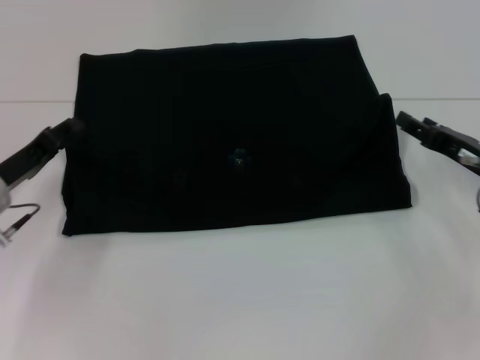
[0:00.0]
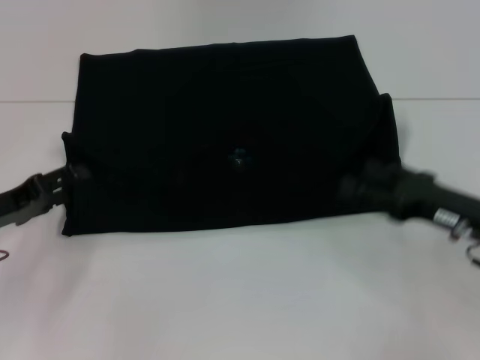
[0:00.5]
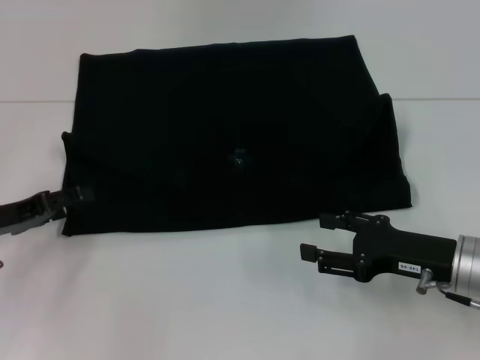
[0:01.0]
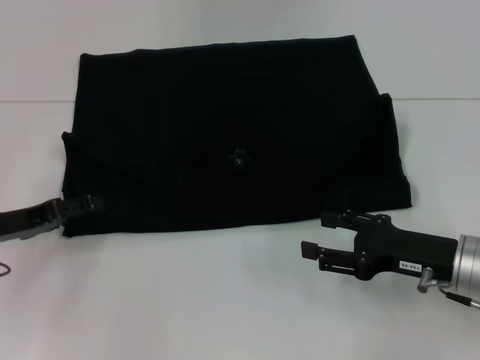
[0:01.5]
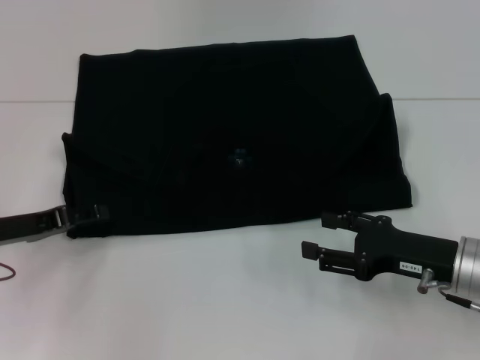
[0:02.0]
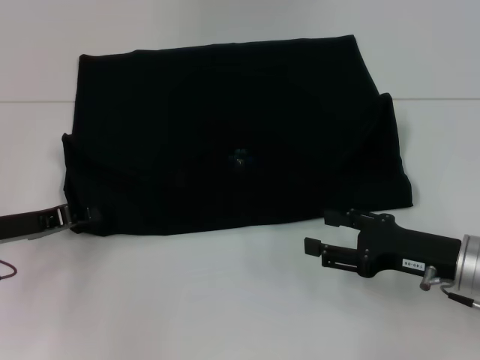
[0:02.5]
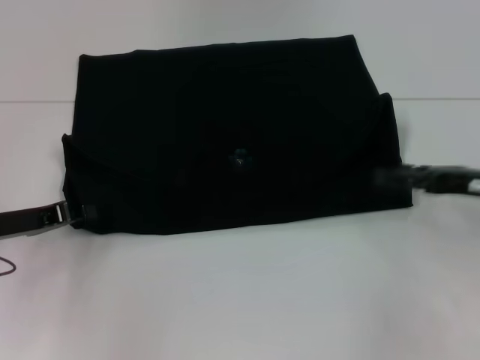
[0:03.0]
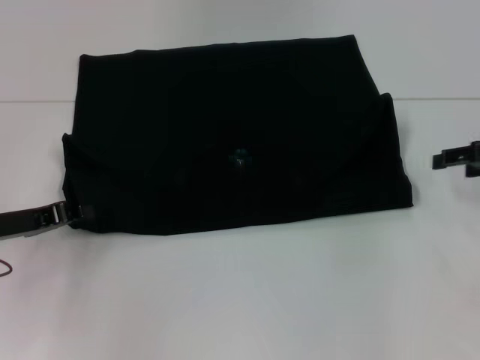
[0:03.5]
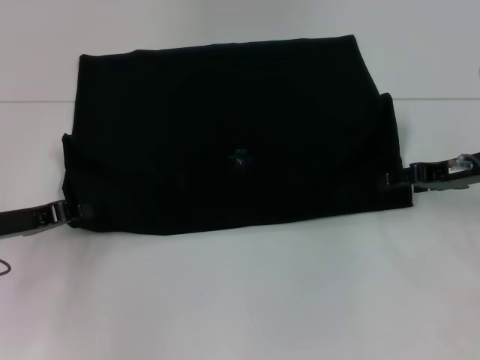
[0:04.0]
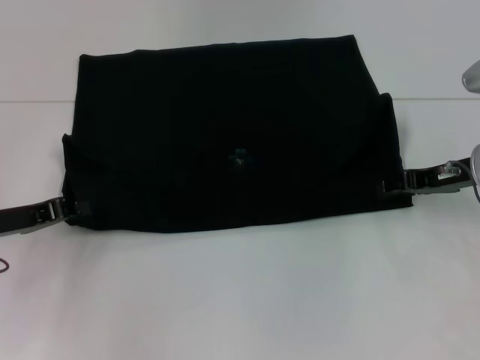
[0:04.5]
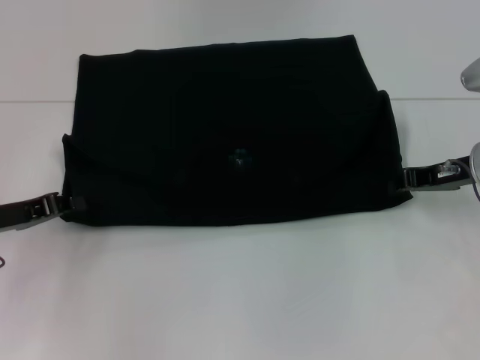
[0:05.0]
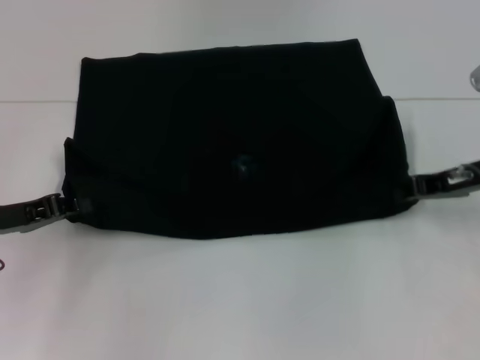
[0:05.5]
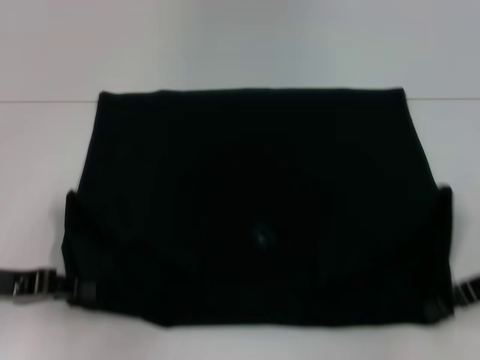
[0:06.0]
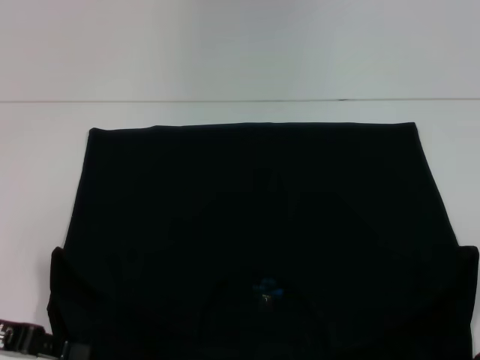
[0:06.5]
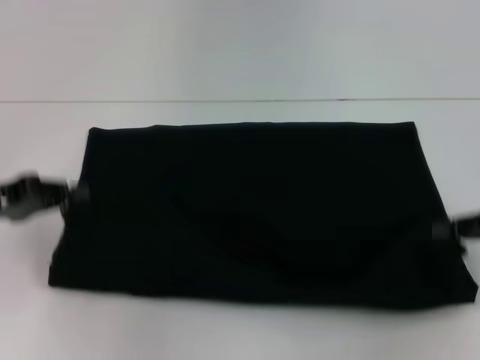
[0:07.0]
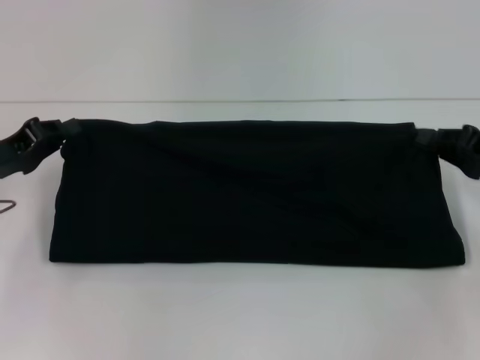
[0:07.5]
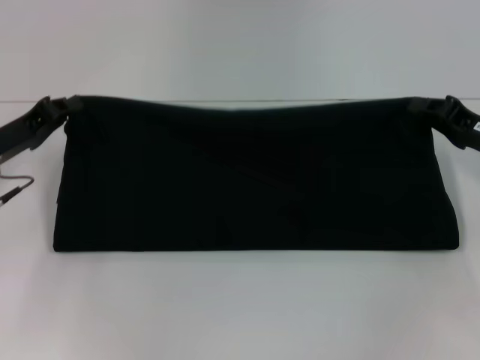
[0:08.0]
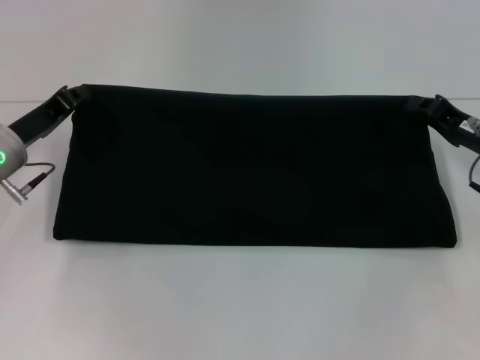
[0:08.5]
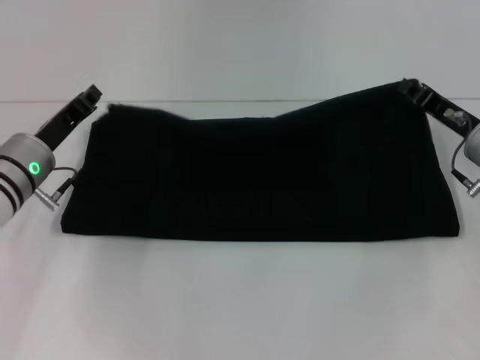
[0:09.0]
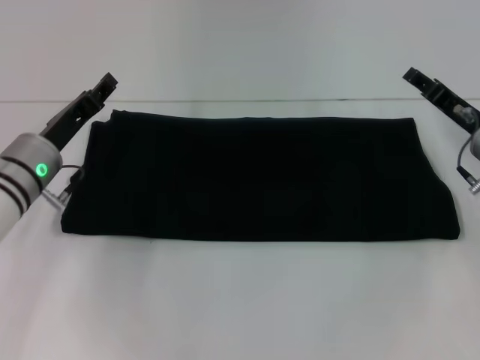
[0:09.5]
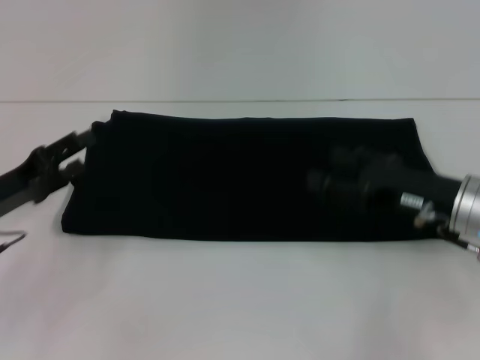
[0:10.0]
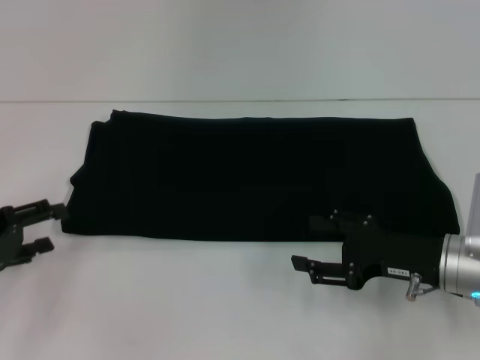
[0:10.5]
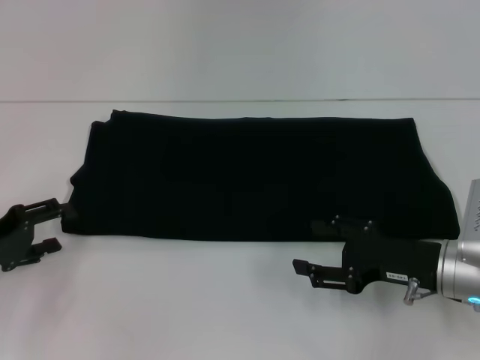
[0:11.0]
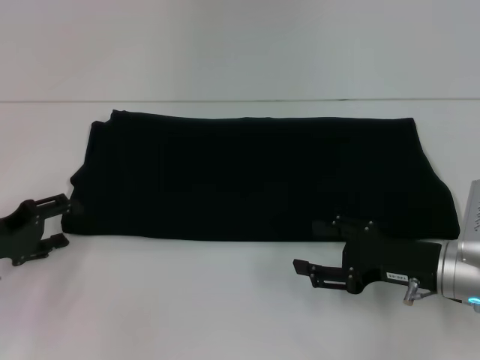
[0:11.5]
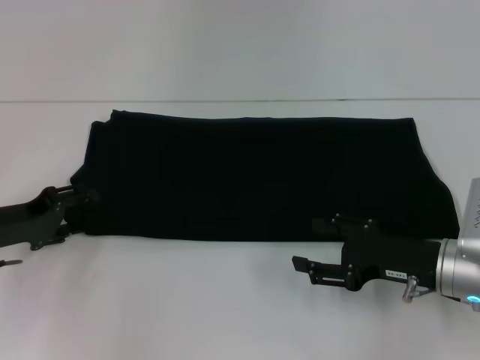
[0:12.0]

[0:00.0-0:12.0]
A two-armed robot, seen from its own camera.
Step, 0:00.5 to 0:06.5: Pull the clothes with your left hand.
Step, 0:00.5 to 0:06.5: Pull the clothes with your right hand.
Step, 0:07.0 to 0:10.0: Fold the clothes with your right hand.
0:00.0 to 0:02.0: The left gripper opens its fingers, while the right gripper heads backward, covering some 5 cm, and opens its fingers.
0:02.0 to 0:04.0: The right gripper heads forward and upward, covering some 10 cm; the left gripper closes up.
0:04.0 to 0:06.0: The right gripper moves backward, about 10 cm, and closes up.
0:06.0 to 0:08.0: Both grippers travel together forward, about 5 cm.
0:08.0 to 0:10.0: The right gripper shifts some 5 cm to the left, and opens up; the left gripper shifts by about 5 cm, and opens its fingers.
0:10.0 to 0:12.0: The right gripper changes place by approximately 5 cm.

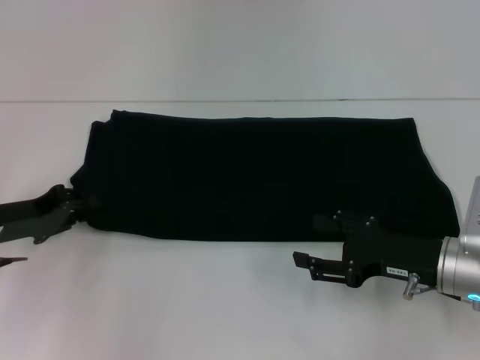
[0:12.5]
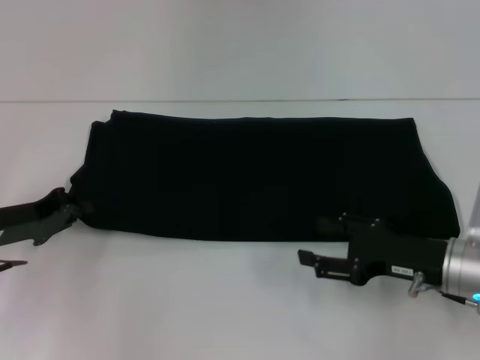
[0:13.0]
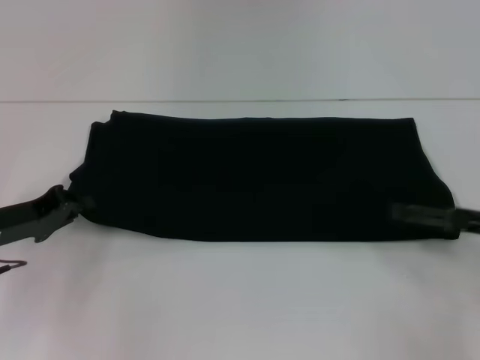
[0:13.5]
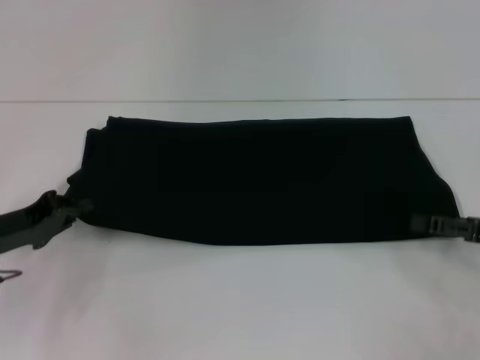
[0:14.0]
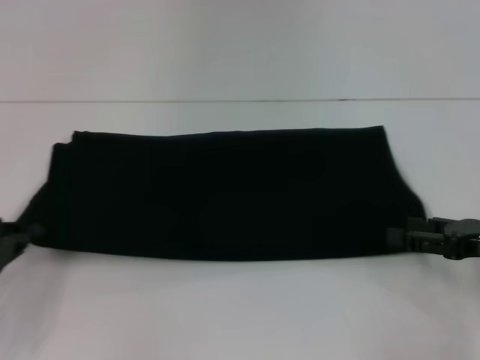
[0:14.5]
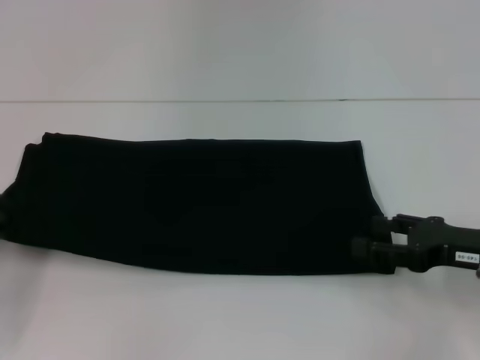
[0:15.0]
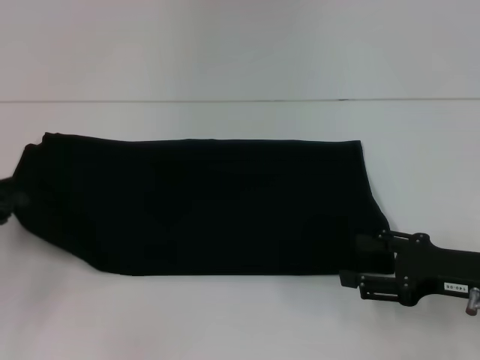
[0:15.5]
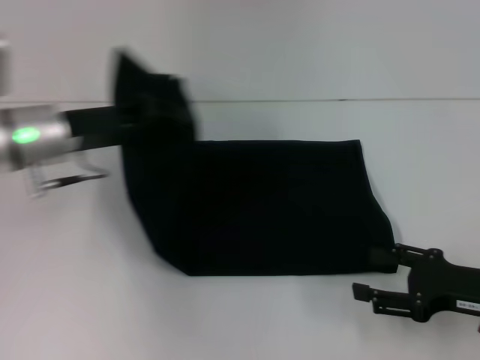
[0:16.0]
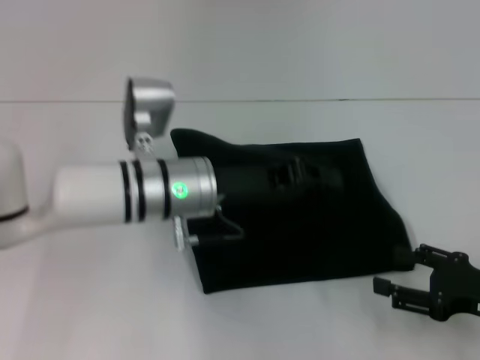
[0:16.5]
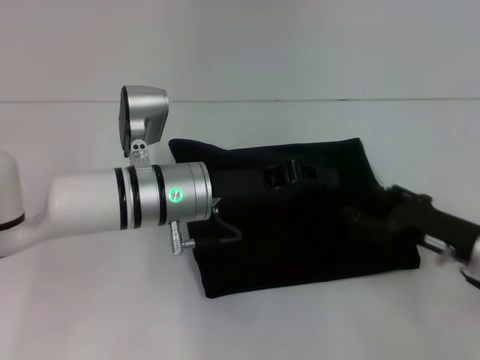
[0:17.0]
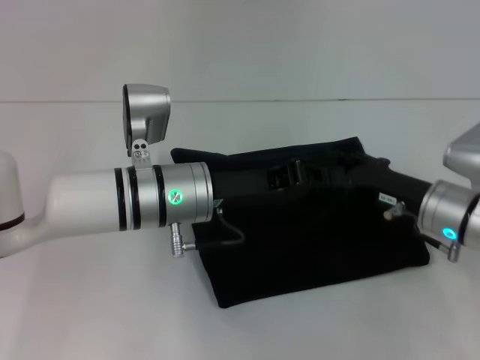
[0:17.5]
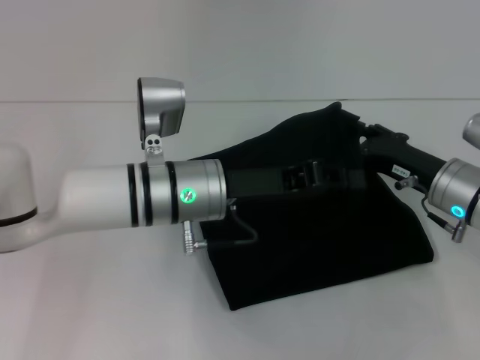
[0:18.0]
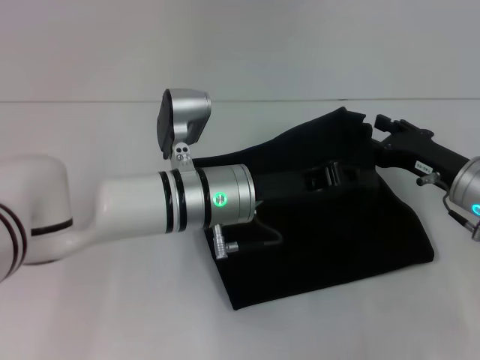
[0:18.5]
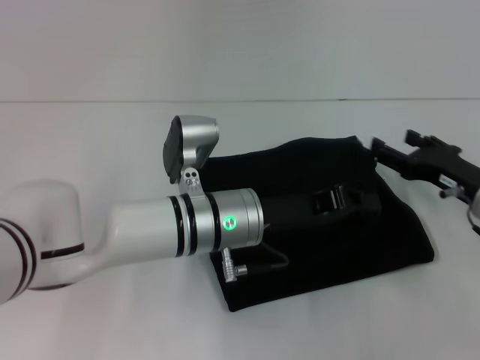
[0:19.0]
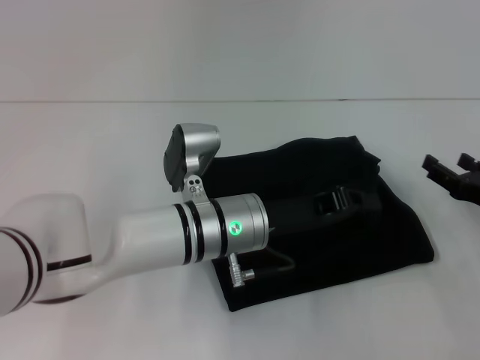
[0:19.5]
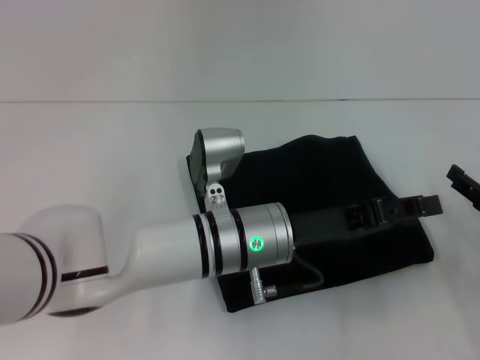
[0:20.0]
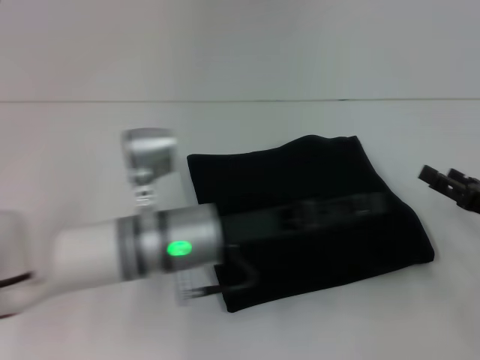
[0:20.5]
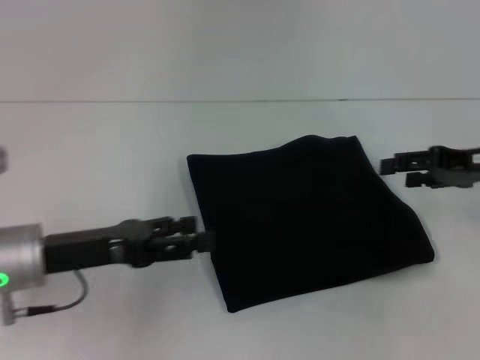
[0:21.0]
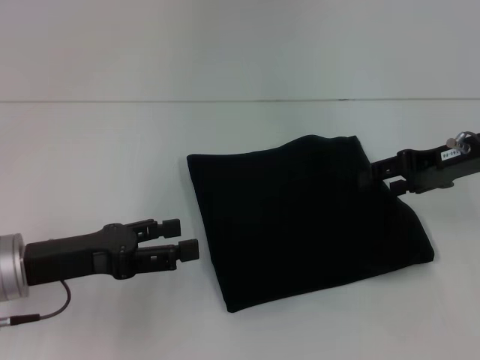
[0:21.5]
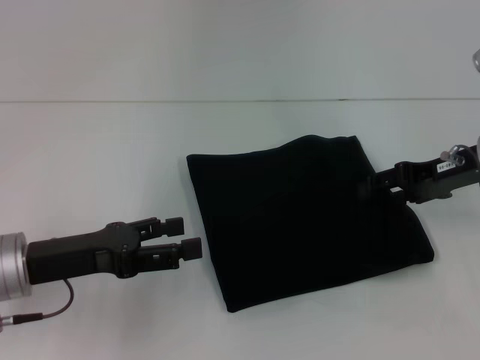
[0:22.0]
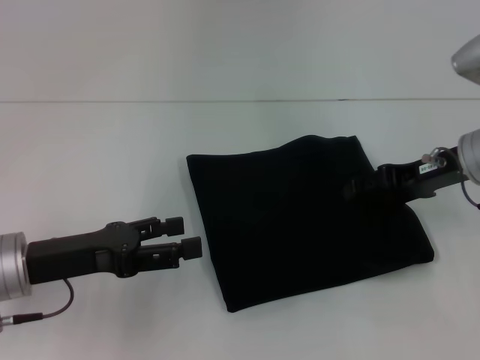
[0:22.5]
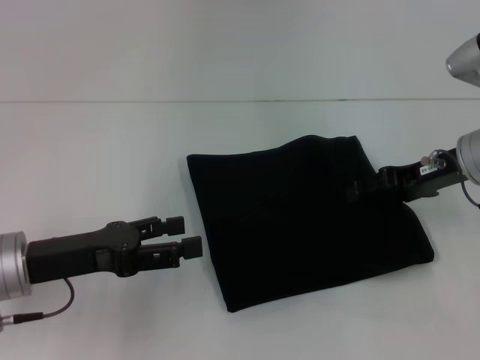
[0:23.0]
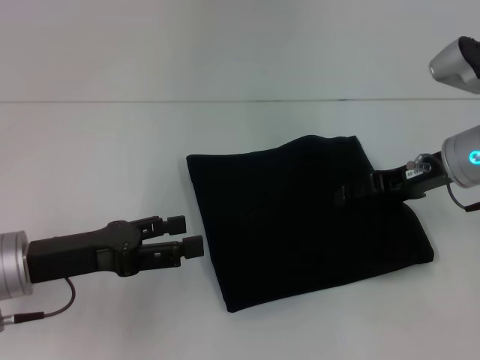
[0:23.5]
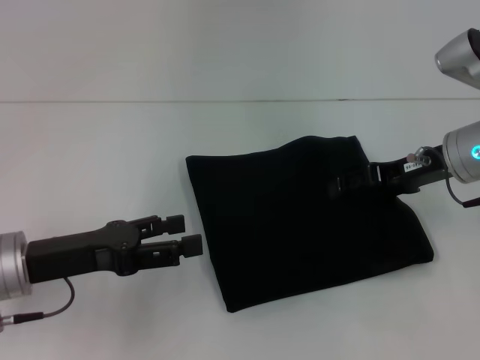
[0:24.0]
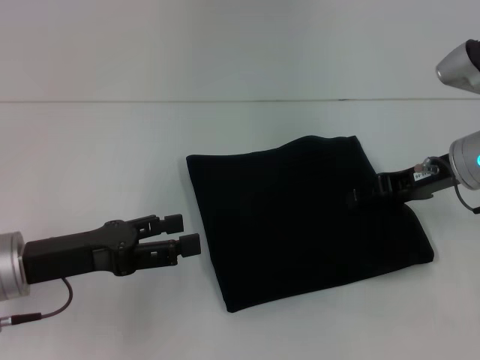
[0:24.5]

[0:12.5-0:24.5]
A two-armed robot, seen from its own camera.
Step, 0:12.5 to 0:20.5: Fold the clothes with your left hand.
0:12.5 to 0:14.5: The left gripper shifts roughly 10 cm backward, and closes. The right gripper is displaced to the right by approximately 10 cm.
0:14.5 to 0:16.5: The left gripper travels to the right by some 25 cm, while the right gripper ends up about 5 cm from where it was.
0:16.5 to 0:18.5: The right gripper heads forward and to the left, covering about 15 cm.
0:18.5 to 0:20.5: The left gripper ends up roughly 5 cm from where it was, and opens its fingers; the right gripper heads to the right and backward, covering approximately 10 cm.
0:20.5 to 0:22.5: The right gripper travels forward, upward and to the left by about 15 cm. The left gripper heads to the left, covering about 15 cm.
0:22.5 to 0:24.5: There are only small adjustments of the grippers.

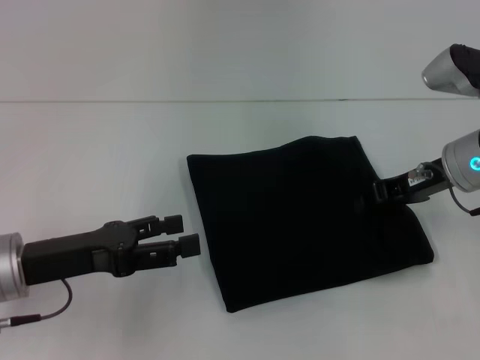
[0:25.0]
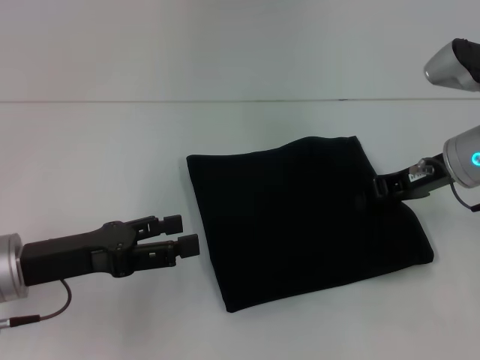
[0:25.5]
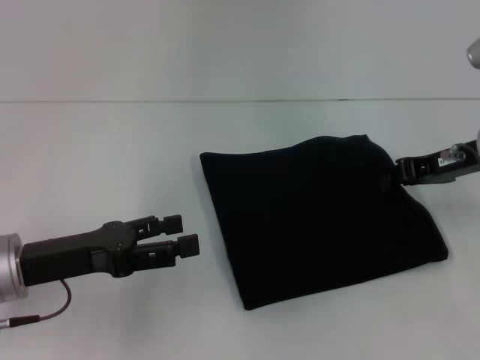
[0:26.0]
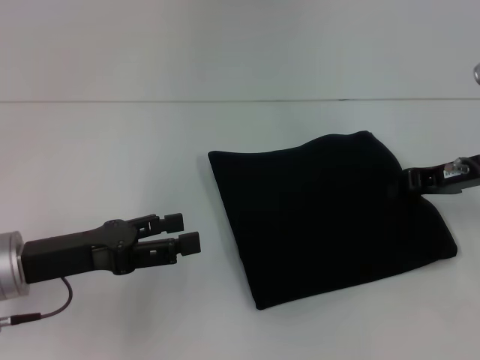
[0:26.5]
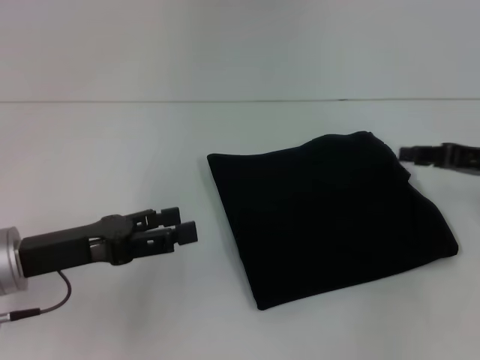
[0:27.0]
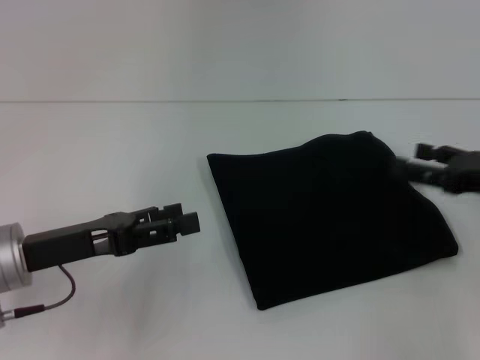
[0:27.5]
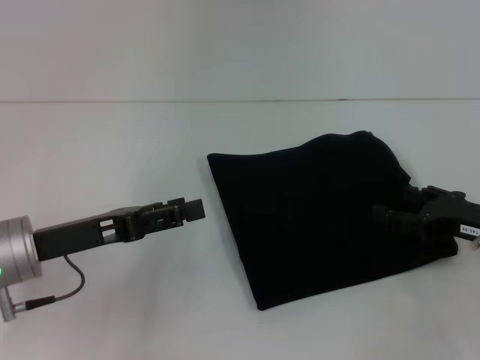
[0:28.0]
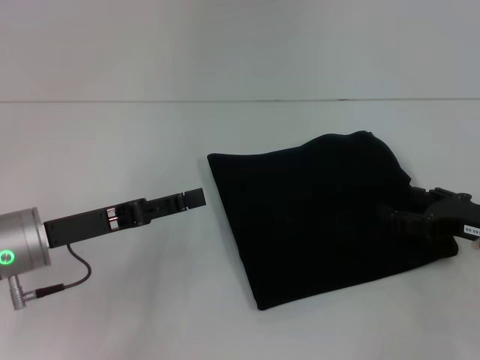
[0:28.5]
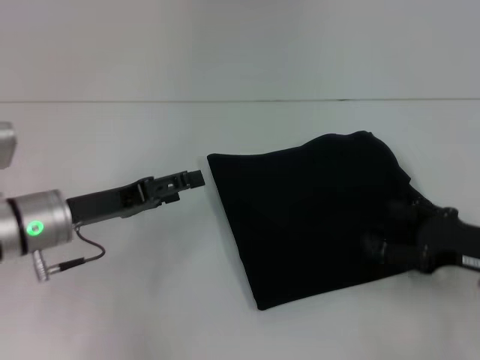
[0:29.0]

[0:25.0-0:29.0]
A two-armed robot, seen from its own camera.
0:25.0 to 0:27.0: The right gripper travels to the right by roughly 10 cm.
0:27.0 to 0:29.0: The left gripper travels forward by roughly 5 cm. The right gripper goes roughly 10 cm backward and downward, and opens.
